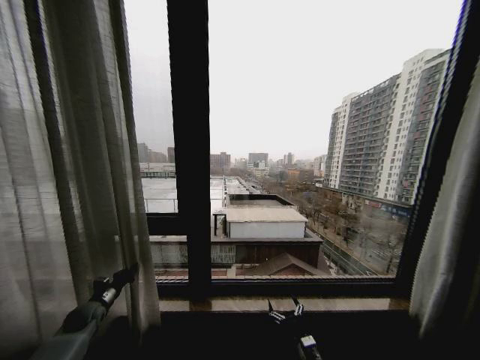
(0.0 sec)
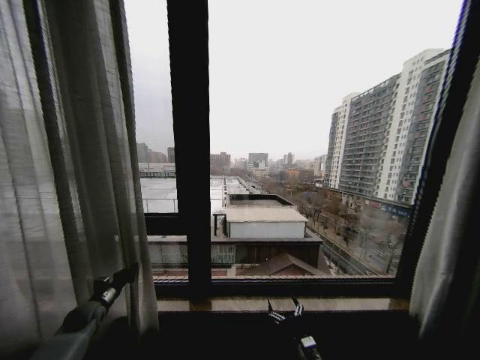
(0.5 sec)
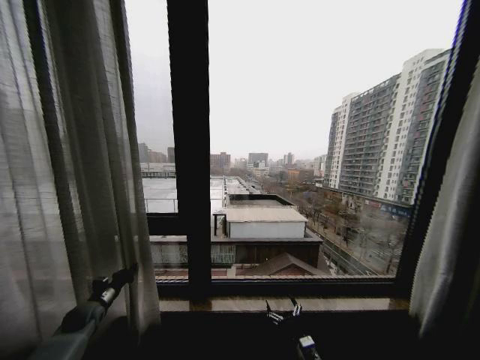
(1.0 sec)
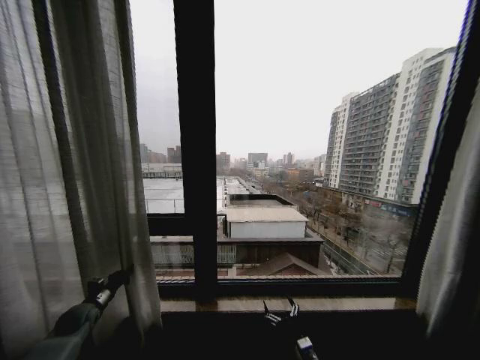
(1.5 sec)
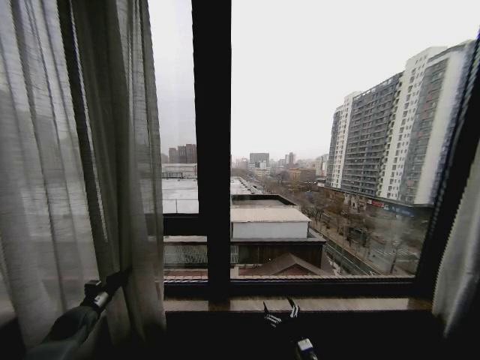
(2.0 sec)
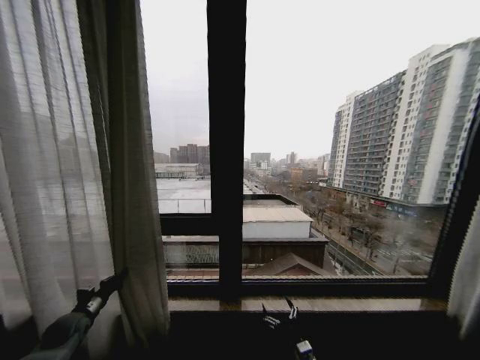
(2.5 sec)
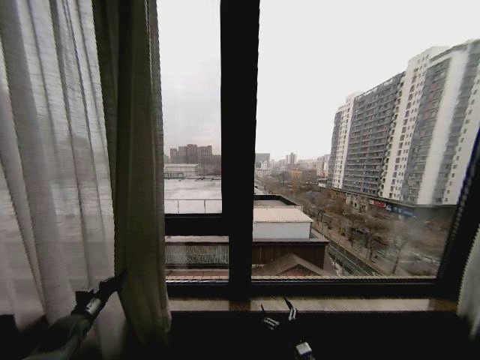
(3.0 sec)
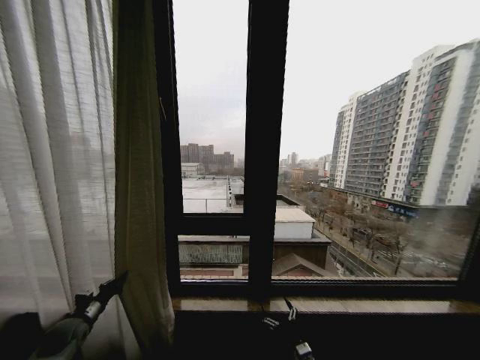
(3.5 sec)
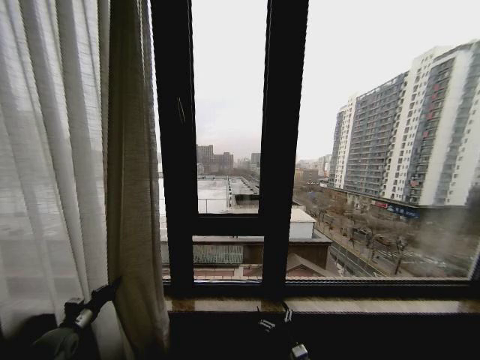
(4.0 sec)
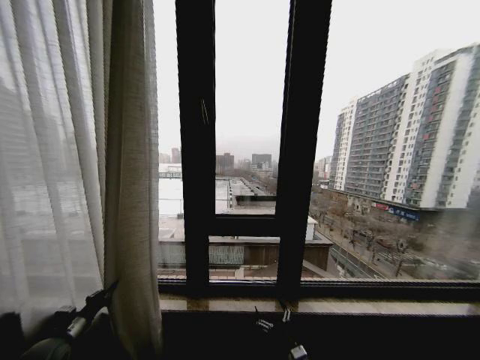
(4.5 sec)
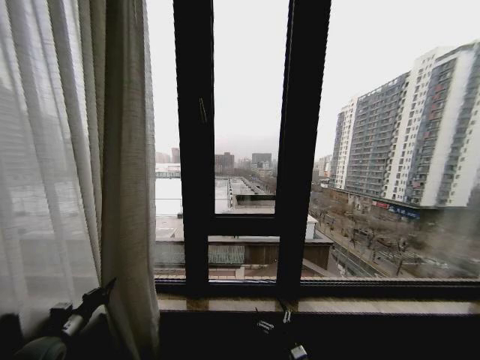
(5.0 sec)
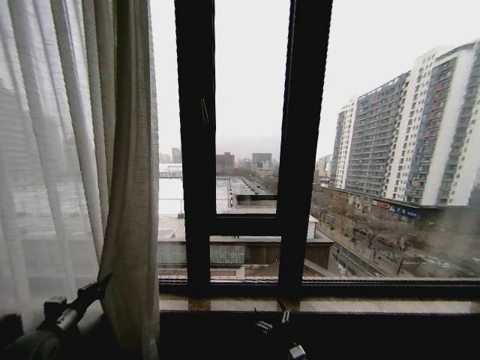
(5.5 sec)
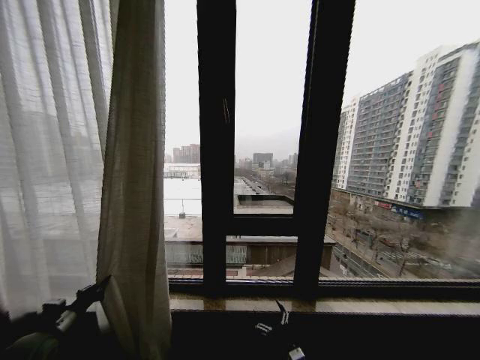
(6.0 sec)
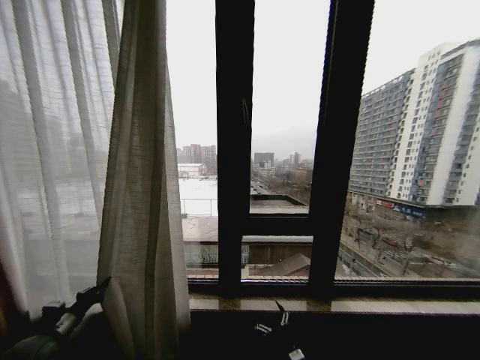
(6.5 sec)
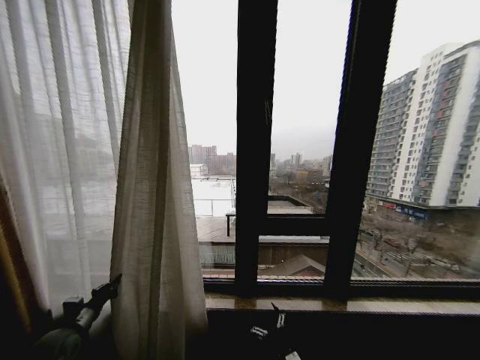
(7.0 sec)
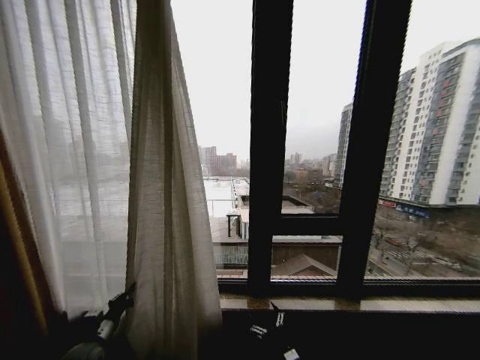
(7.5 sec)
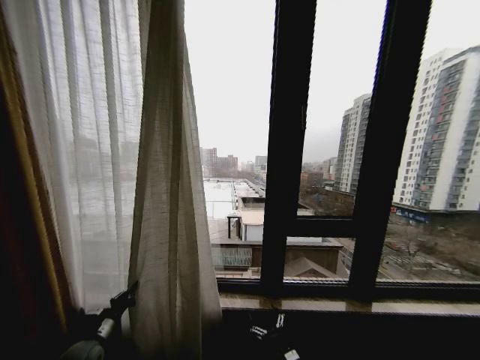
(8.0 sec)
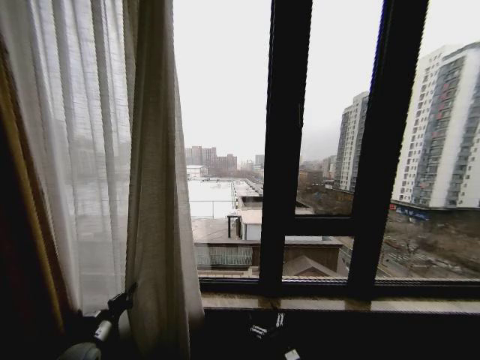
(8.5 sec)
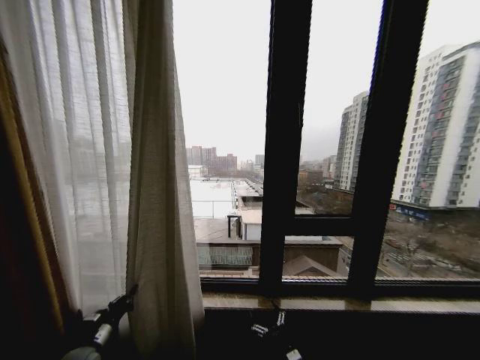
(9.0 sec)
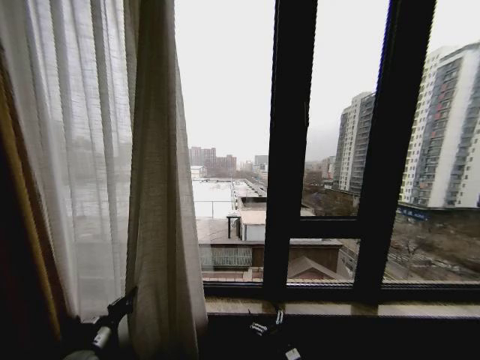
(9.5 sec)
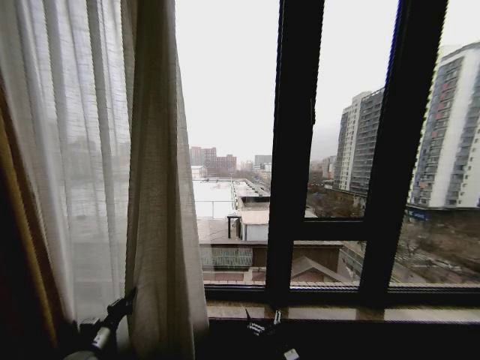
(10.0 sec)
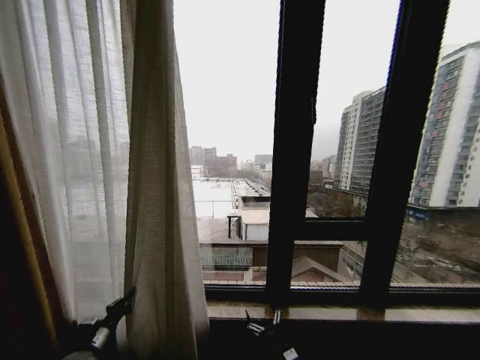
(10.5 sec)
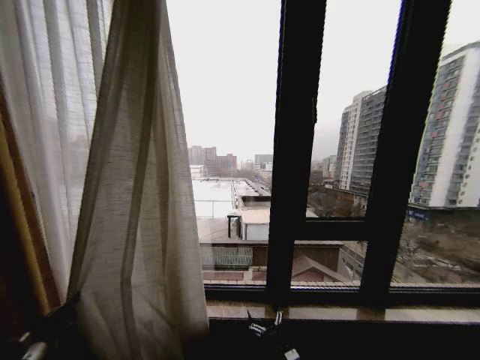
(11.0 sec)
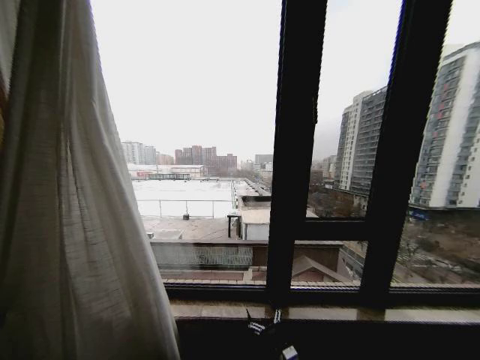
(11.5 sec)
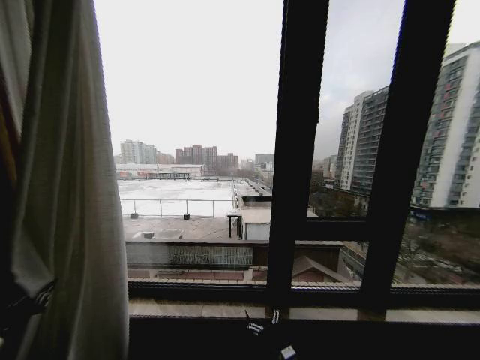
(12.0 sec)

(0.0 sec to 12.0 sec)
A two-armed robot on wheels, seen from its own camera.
Task of the whole recording: Open the curtains by pulling them apart, changing their state from closed to fully open.
2.0 sec - 4.0 sec: The left gripper moves backward, some 5 cm.
4.0 sec - 6.0 sec: The left gripper changes place by some 5 cm.
6.0 sec - 8.0 sec: The left gripper moves to the right and downward, some 10 cm.
10.0 sec - 12.0 sec: The left gripper shifts some 20 cm to the left, backward and upward.

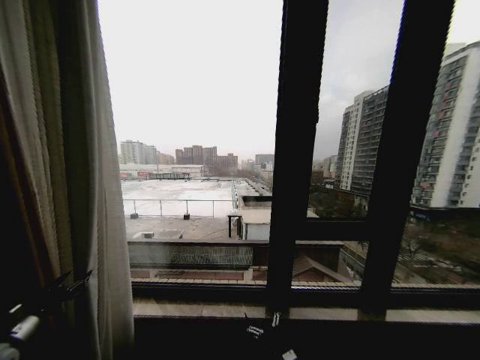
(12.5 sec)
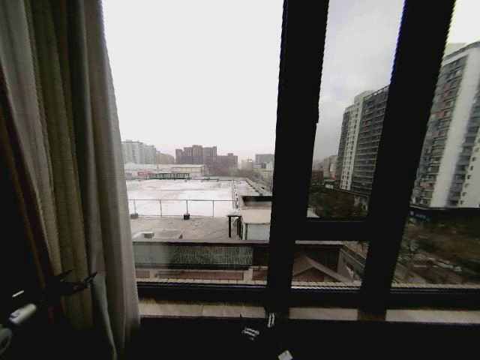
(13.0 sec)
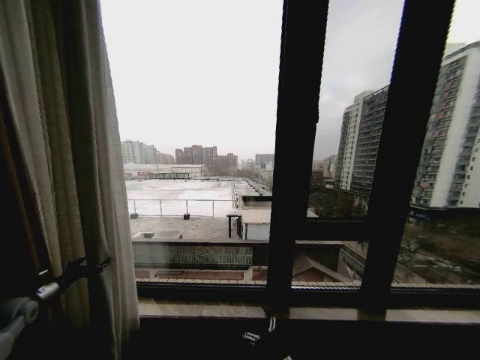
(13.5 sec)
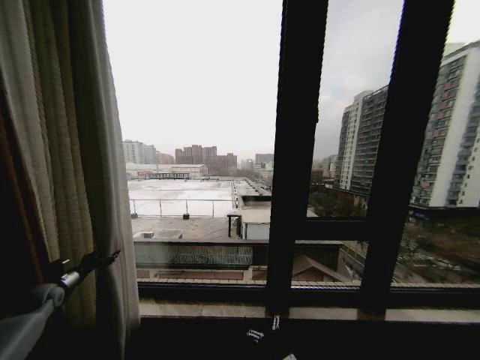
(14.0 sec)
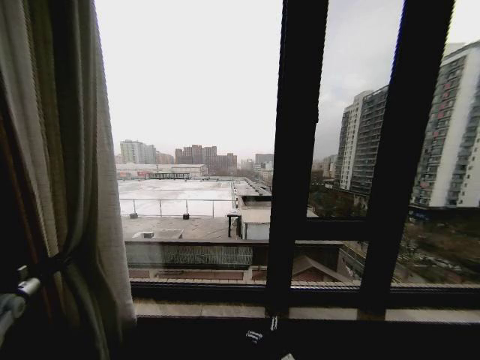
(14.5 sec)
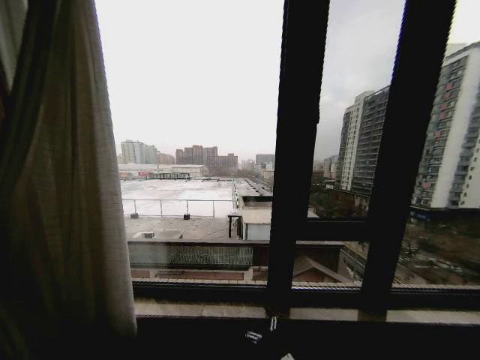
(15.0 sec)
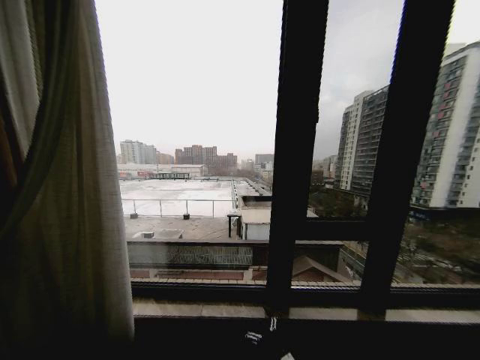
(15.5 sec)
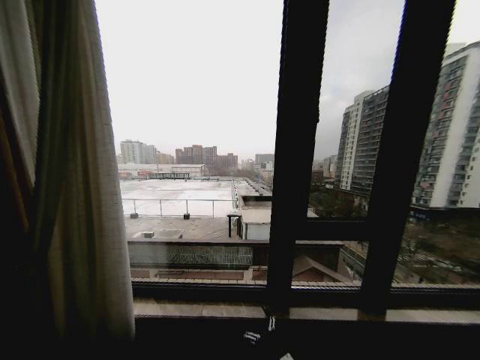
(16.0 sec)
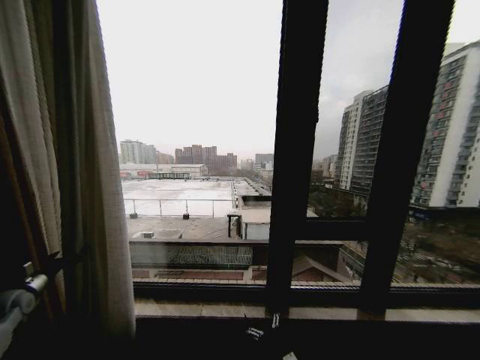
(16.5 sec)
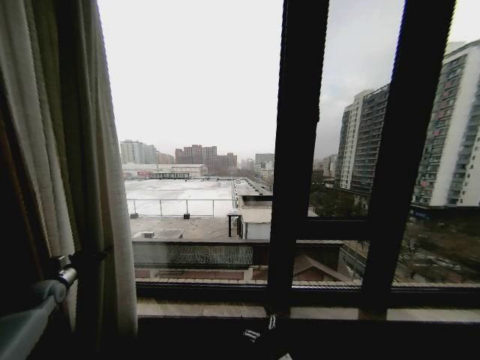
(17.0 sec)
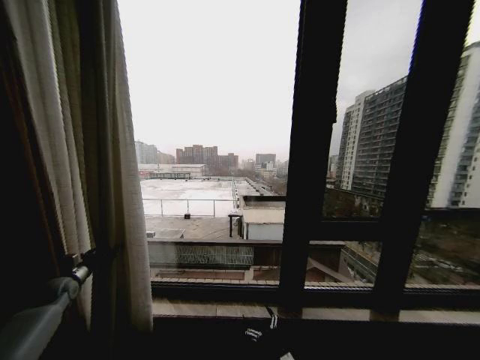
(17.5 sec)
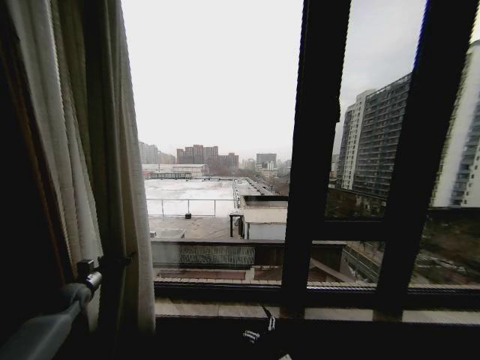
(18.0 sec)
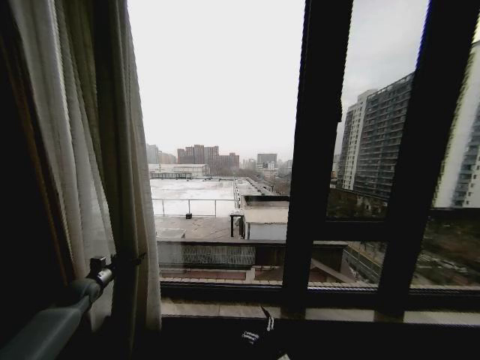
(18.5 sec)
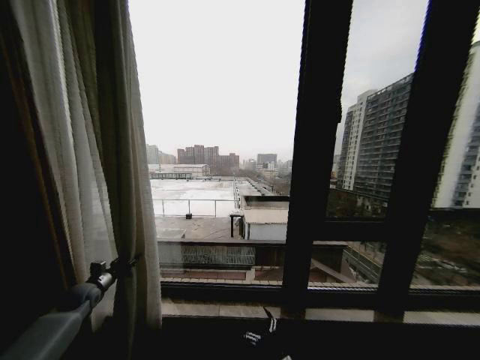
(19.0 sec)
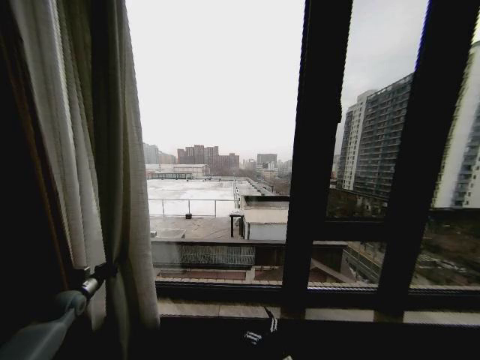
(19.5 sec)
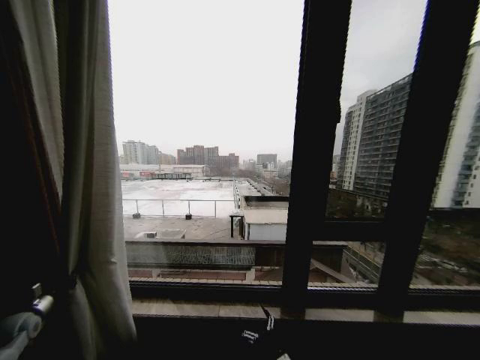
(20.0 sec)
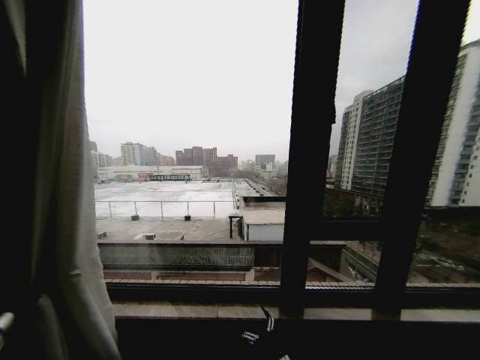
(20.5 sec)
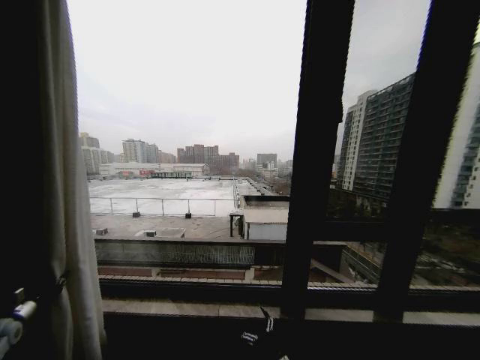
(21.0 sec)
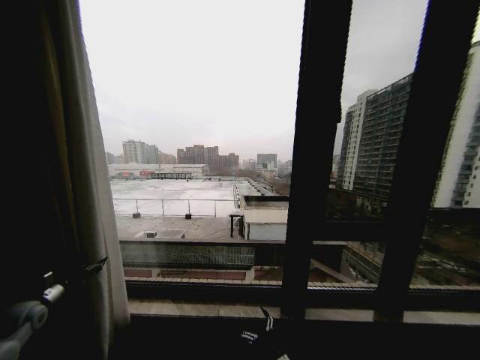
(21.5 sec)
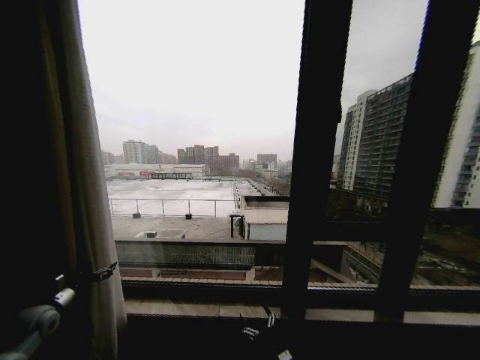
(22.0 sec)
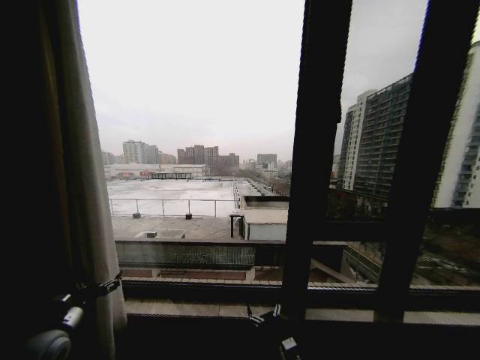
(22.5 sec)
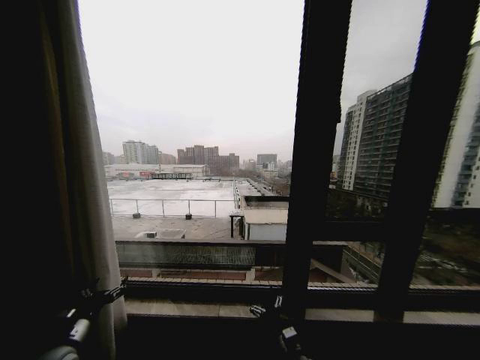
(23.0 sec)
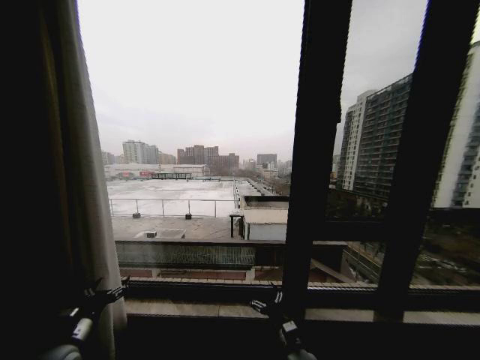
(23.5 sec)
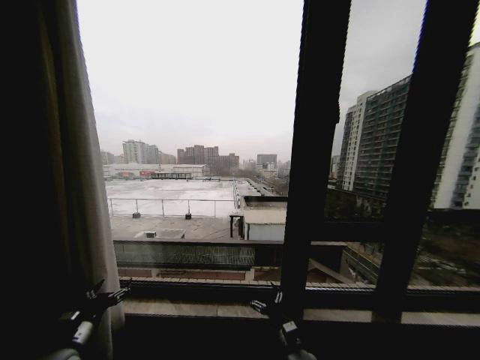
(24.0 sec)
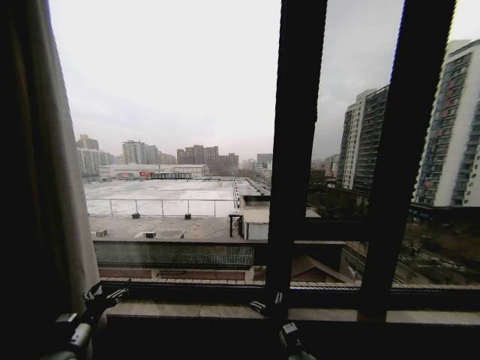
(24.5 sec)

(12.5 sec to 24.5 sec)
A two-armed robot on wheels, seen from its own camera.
Task of the whole recording: Open the curtains by pulling them apart, changing their state from closed to fully open.
12.5 sec - 14.5 sec: The left gripper goes about 15 cm forward and to the left.
14.5 sec - 16.5 sec: The left gripper reaches roughly 15 cm backward, then returns, and opens.
16.5 sec - 18.5 sec: The left gripper shifts about 15 cm to the right and forward.
18.5 sec - 20.5 sec: The left gripper travels to the left and backward by some 25 cm, and closes its fingers.
20.5 sec - 22.5 sec: The left gripper travels to the right by approximately 20 cm, and opens its fingers.
22.5 sec - 24.5 sec: The left gripper shifts by some 5 cm.
